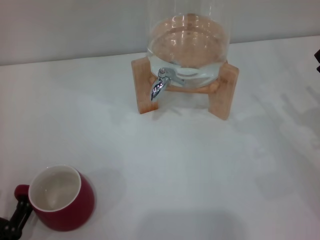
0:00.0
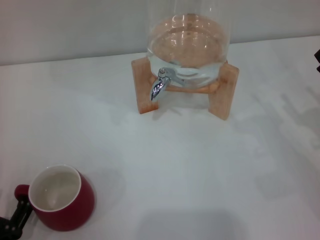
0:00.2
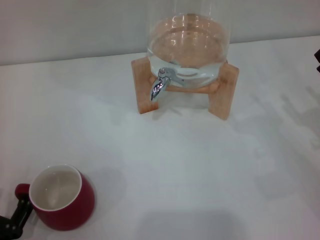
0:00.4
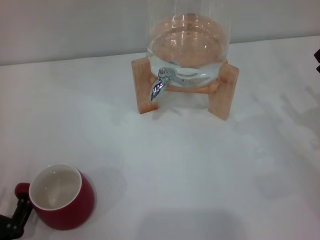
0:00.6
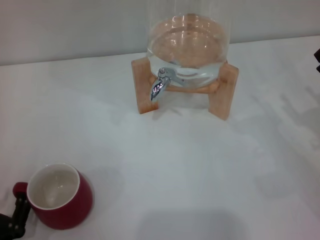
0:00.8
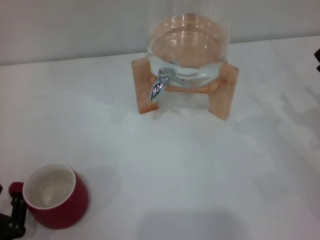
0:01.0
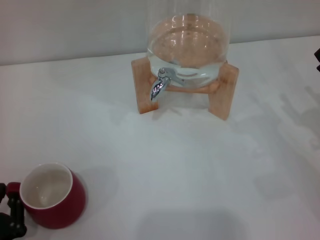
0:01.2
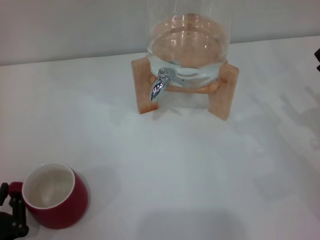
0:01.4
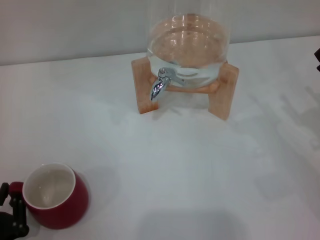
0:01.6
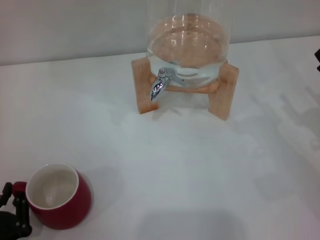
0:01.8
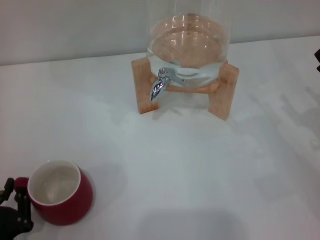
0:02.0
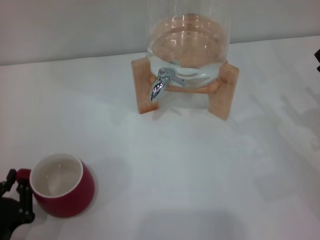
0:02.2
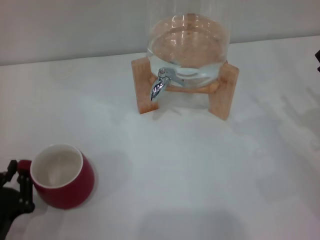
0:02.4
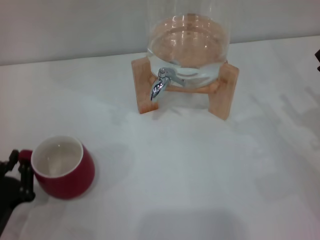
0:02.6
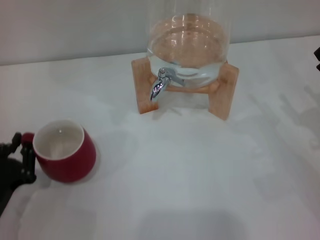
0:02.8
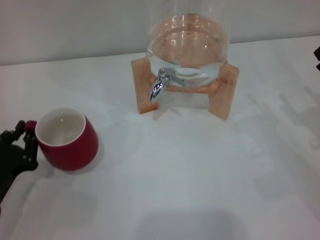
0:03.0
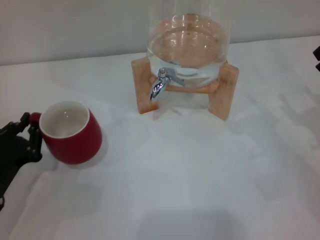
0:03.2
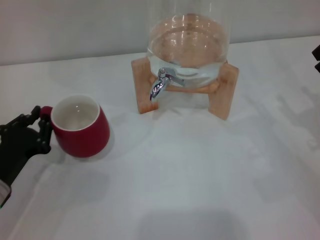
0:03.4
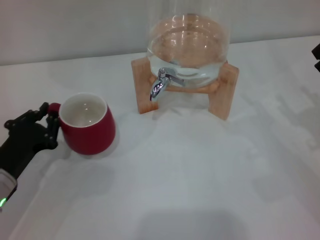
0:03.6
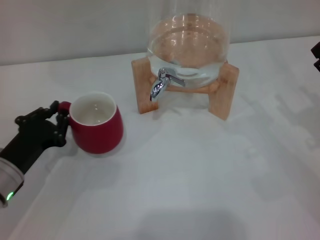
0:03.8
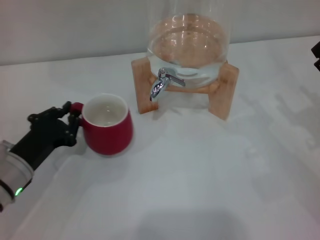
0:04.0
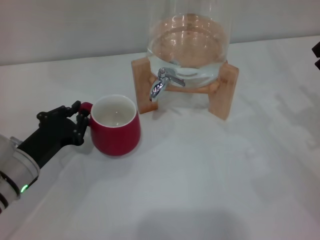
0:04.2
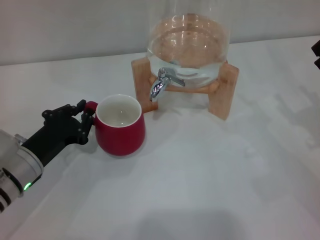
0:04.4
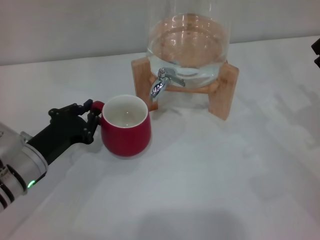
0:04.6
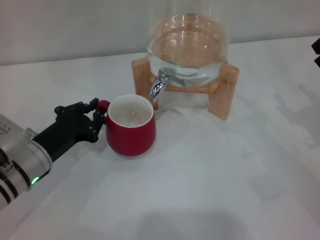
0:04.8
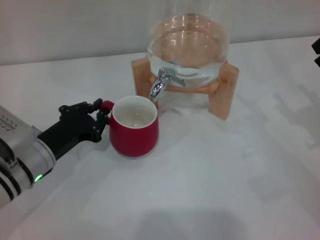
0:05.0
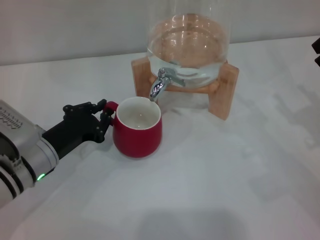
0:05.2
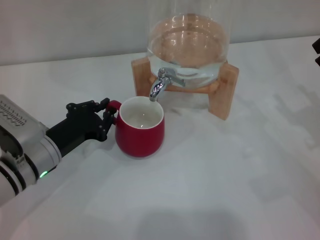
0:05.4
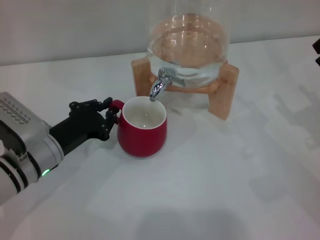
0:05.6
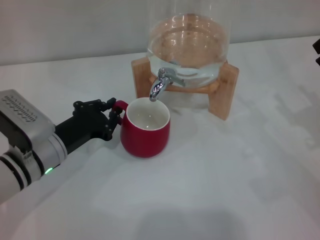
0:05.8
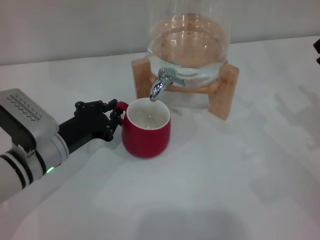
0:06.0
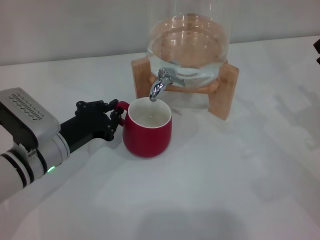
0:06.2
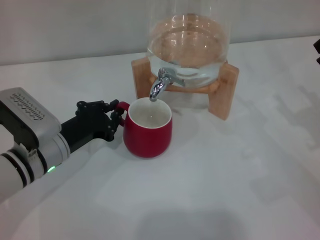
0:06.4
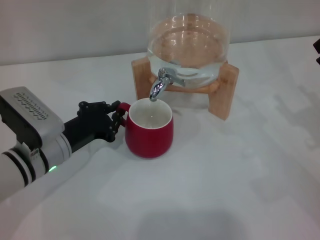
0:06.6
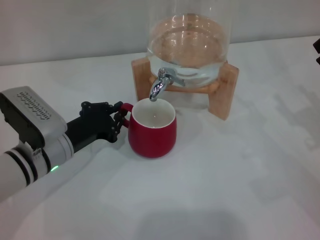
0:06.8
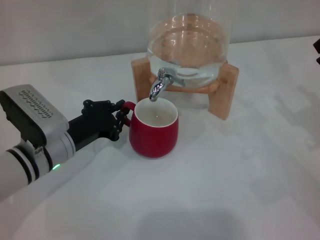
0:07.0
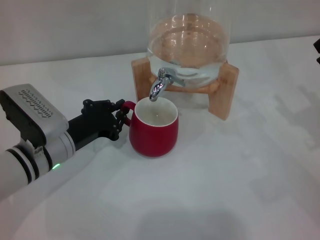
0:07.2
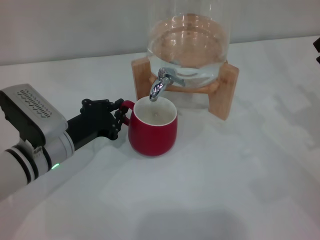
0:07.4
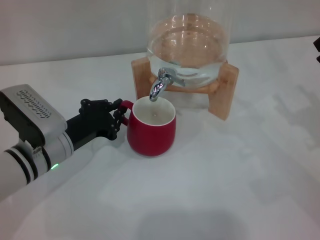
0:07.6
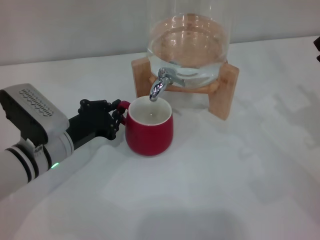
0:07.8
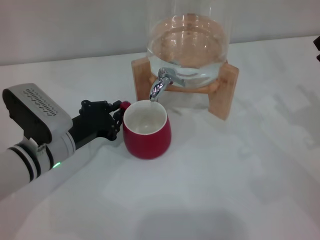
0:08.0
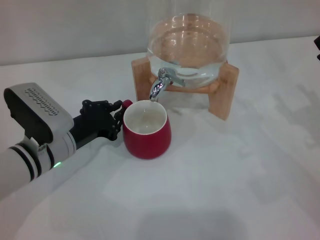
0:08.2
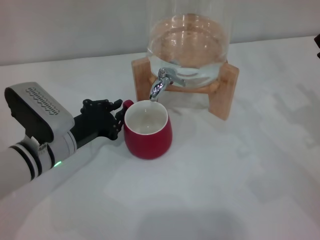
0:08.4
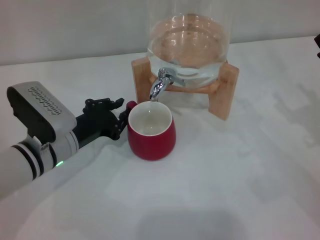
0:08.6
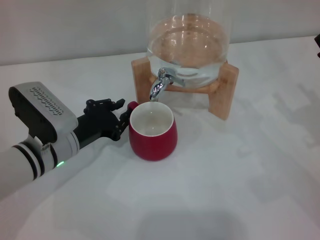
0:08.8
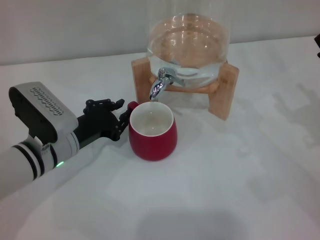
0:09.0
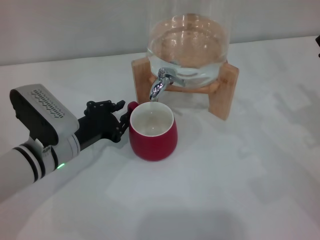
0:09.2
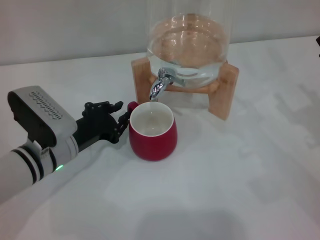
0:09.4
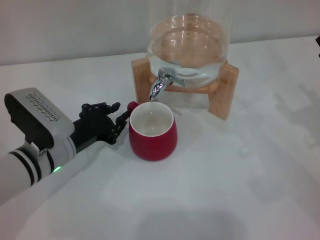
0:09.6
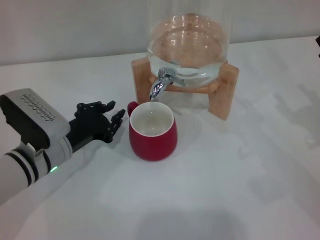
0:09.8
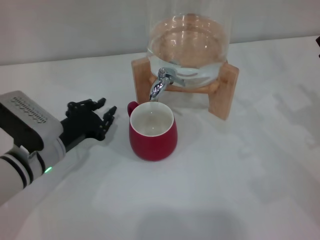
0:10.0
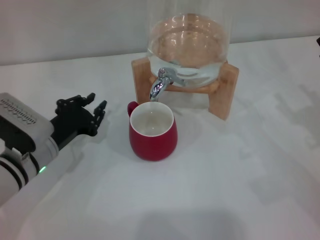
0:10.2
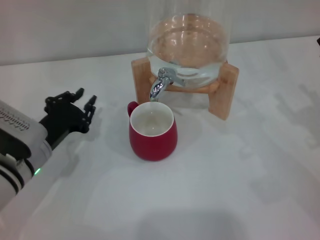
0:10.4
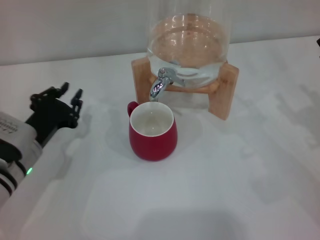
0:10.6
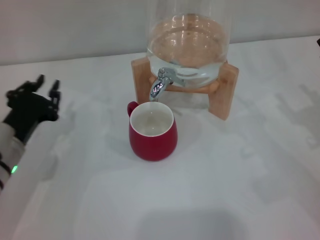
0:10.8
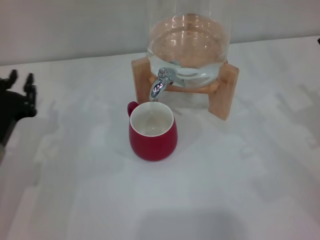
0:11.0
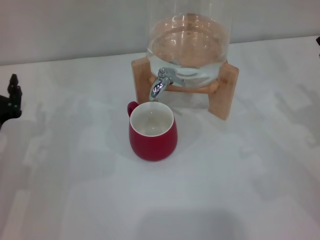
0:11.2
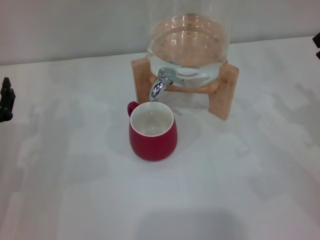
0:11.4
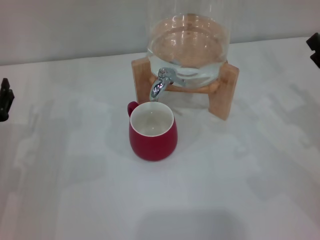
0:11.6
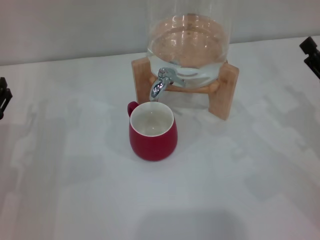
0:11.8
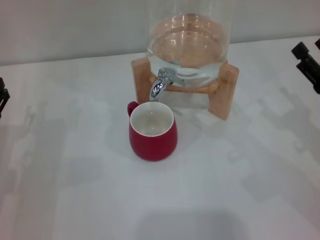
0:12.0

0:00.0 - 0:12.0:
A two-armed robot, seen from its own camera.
Task of the whole recording: the left gripper pick up the red cup and place it horizontally under the faucet, the right gripper turn on the faucet to fill the cup, and then turn off the faucet.
Step, 0:00.0 - 0:09.0: Move the cup beneath the water dispenser nozzle with the left gripper.
0:00.0 - 0:01.6: The left gripper closes up.
0:01.6 - 0:03.0: The left gripper shifts roughly 10 cm forward.
0:03.0 - 0:04.4: The left gripper goes approximately 10 cm forward and to the right.
0:04.4 - 0:06.0: The grippers make only small movements.
0:06.0 - 0:07.6: Both grippers stay put.
0:07.6 - 0:09.0: The two grippers keep their place.
0:09.0 - 0:10.4: There are only small adjustments of the grippers.
0:10.4 - 0:12.0: The left gripper shifts about 10 cm to the left, and opens.

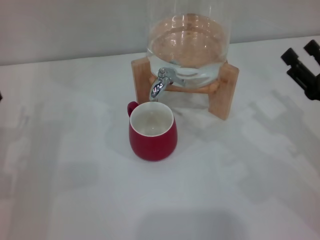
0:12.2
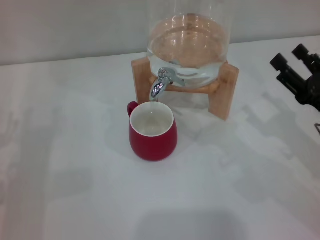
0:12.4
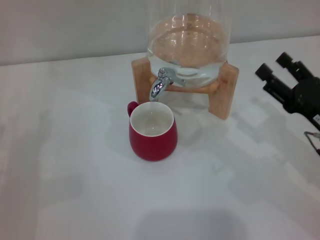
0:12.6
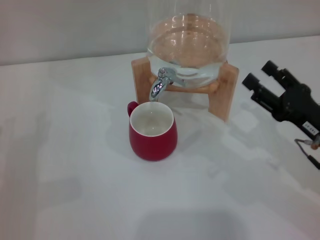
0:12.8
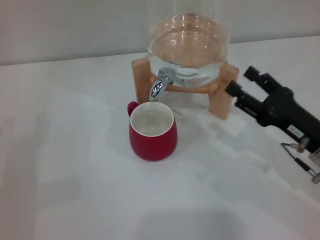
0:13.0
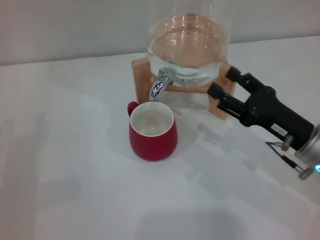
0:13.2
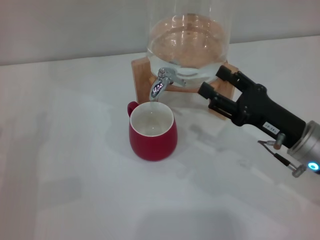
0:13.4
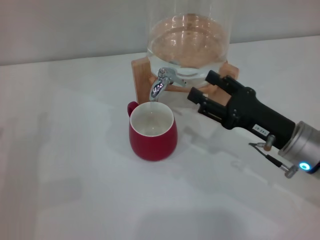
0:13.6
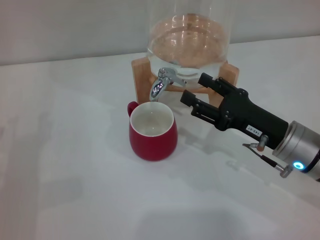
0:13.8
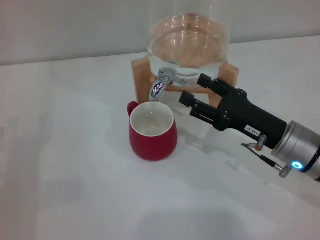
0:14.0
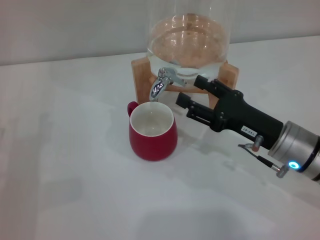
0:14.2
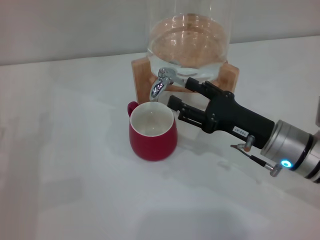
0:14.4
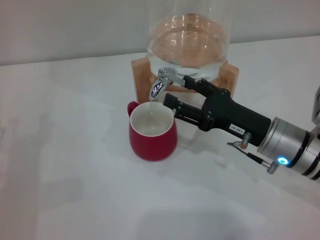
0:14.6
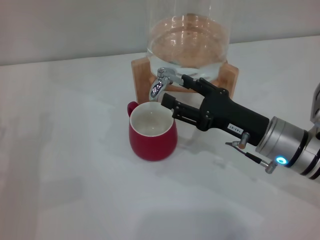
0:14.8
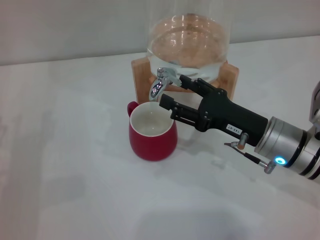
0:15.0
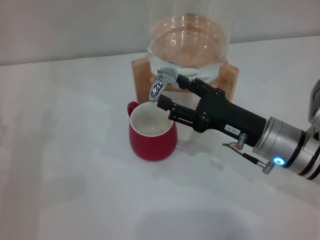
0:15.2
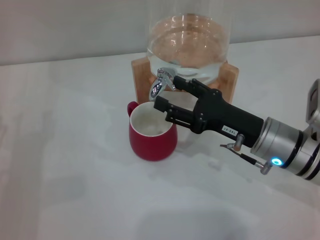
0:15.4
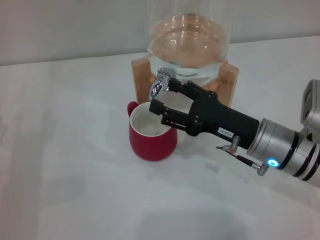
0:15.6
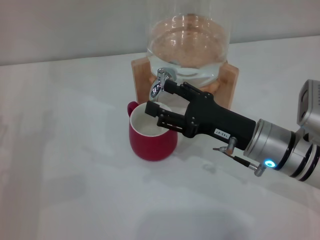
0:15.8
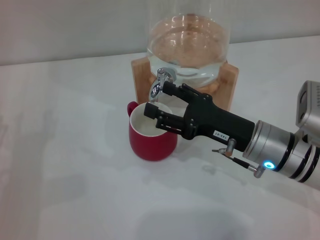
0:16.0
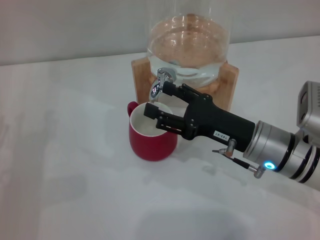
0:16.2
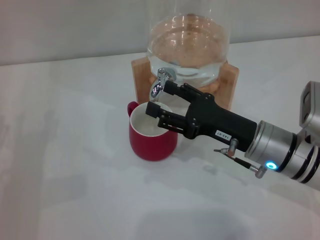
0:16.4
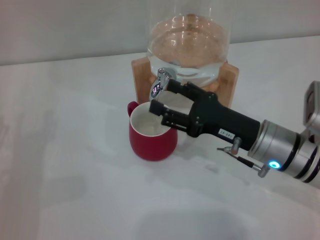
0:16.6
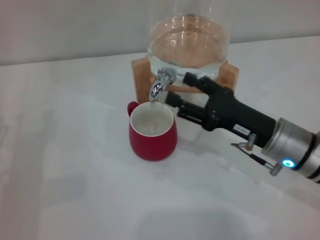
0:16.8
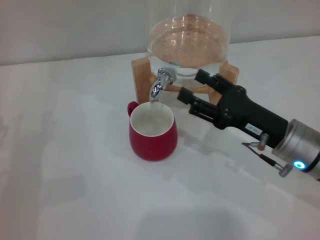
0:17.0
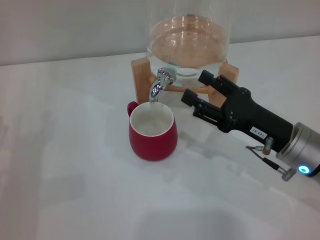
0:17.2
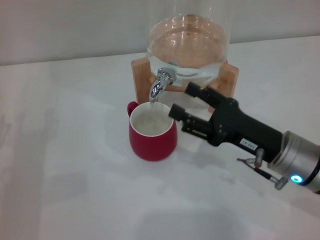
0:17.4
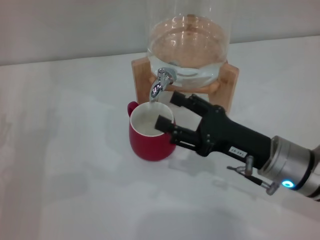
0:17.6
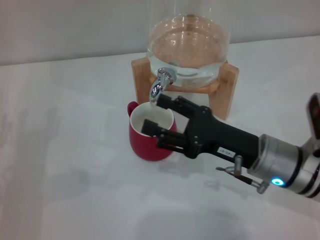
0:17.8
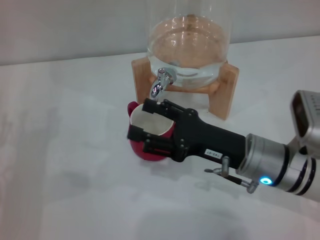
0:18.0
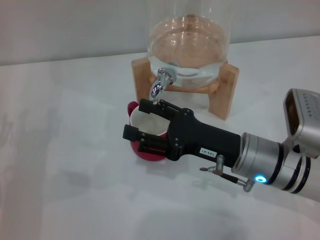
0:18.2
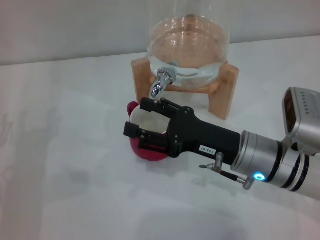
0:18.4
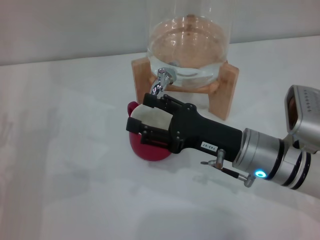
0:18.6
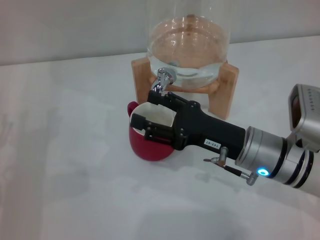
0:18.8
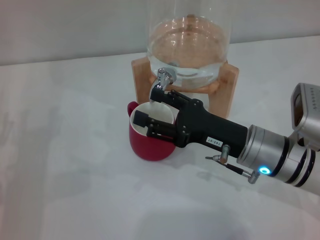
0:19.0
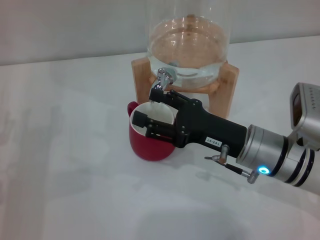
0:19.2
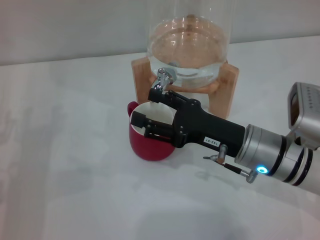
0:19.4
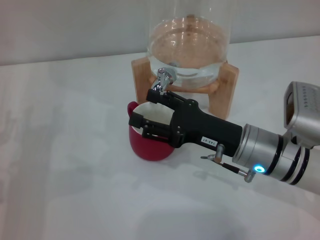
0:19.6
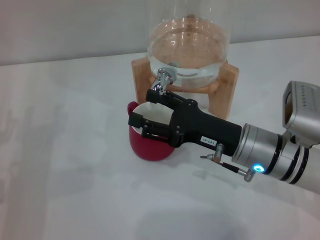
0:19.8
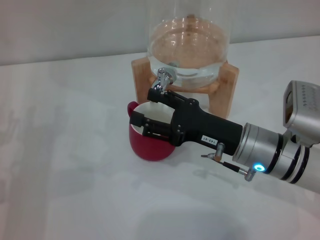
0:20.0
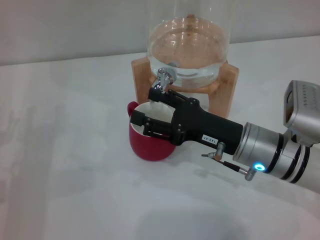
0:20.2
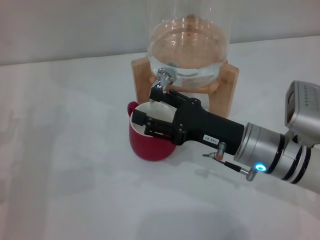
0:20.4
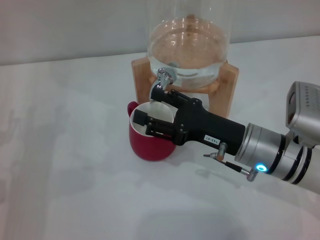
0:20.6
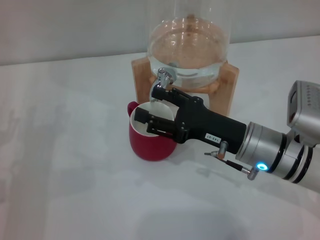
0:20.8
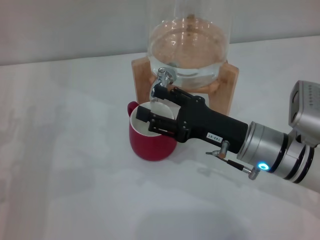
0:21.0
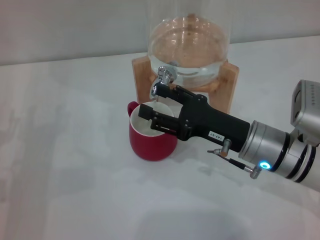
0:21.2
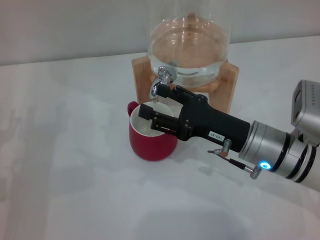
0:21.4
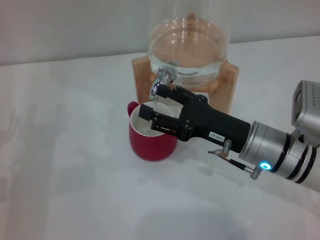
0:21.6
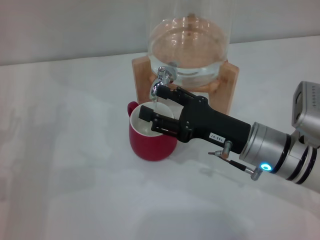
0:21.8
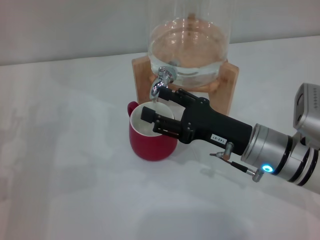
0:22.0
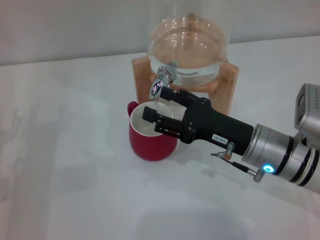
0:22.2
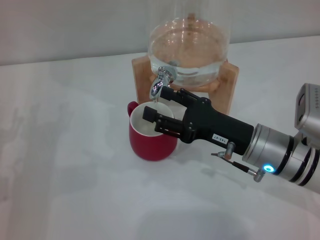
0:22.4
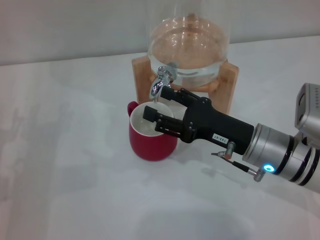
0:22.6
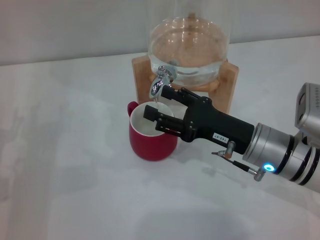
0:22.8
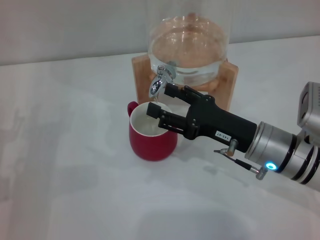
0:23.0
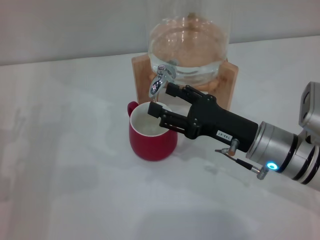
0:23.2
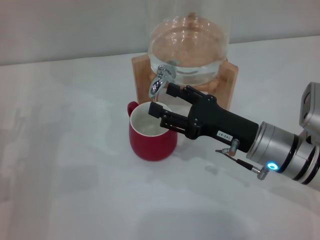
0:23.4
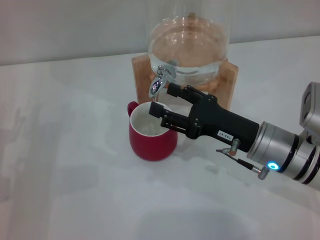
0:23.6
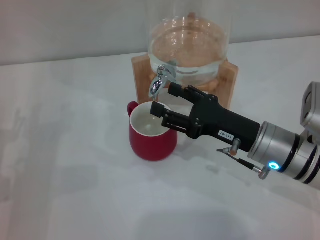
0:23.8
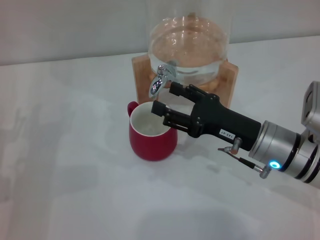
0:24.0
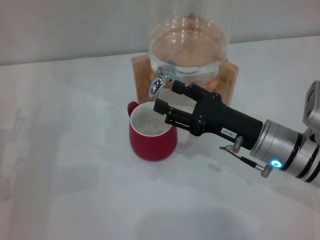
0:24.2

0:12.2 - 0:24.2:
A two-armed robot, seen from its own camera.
Task of the whole recording: the left gripper pick up the red cup and place it horizontally under the faucet, the right gripper turn on the faucet to fill the cup, and then turn off the faucet.
Step, 0:12.2 - 0:16.4: Open the dispenser valve and fill the cup with water with the right gripper.
0:12.2 - 0:13.8: The right gripper moves to the left, some 10 cm.
0:13.8 - 0:16.6: The grippers stay close to where they were, moving slightly.
0:16.6 - 0:18.2: The grippers stay close to where they were, moving slightly.
0:18.2 - 0:19.8: Both grippers stay put.
0:19.8 - 0:21.2: Both grippers stay about where they are.
0:21.2 - 0:22.6: Both grippers stay about where they are.
0:22.6 - 0:24.2: Both grippers stay put.
